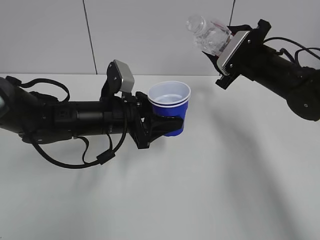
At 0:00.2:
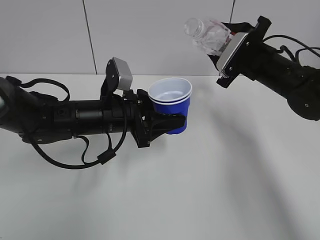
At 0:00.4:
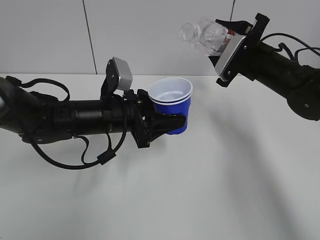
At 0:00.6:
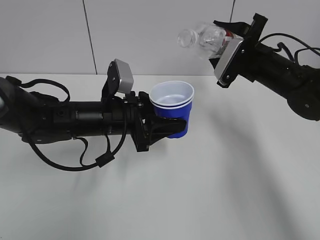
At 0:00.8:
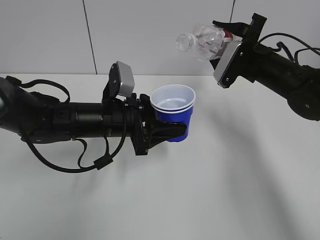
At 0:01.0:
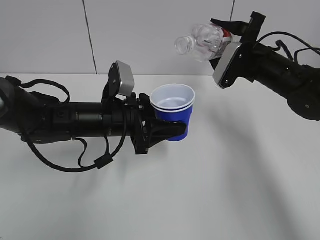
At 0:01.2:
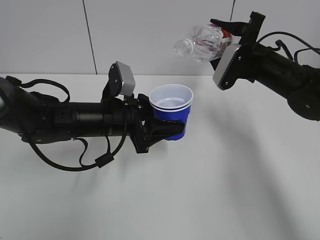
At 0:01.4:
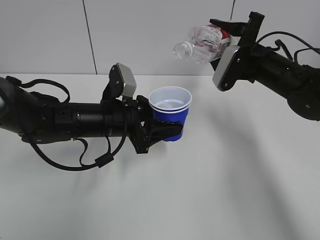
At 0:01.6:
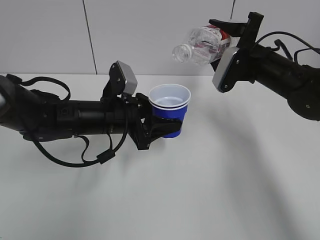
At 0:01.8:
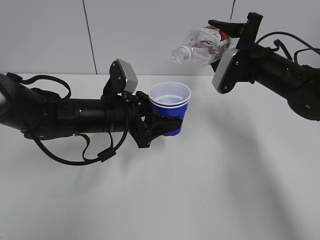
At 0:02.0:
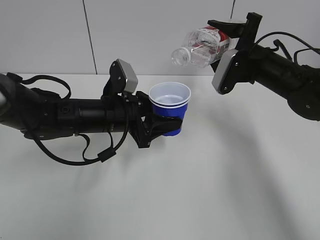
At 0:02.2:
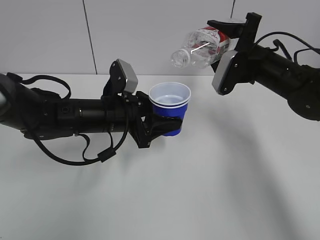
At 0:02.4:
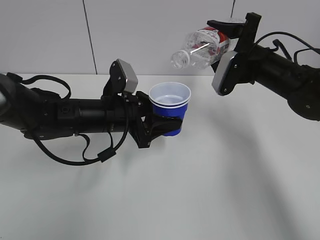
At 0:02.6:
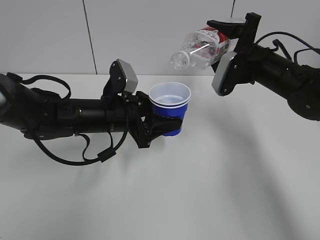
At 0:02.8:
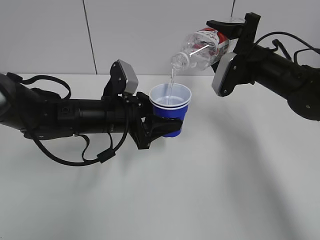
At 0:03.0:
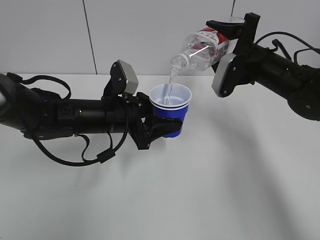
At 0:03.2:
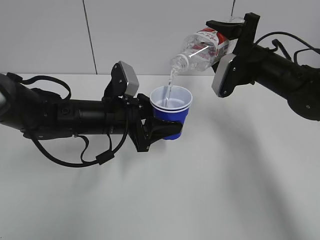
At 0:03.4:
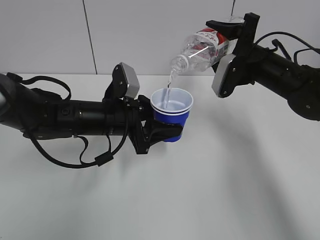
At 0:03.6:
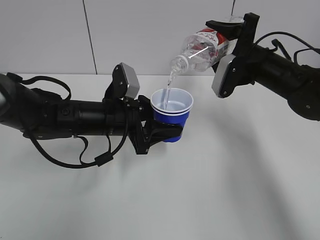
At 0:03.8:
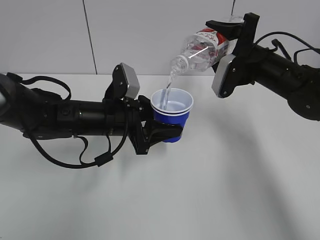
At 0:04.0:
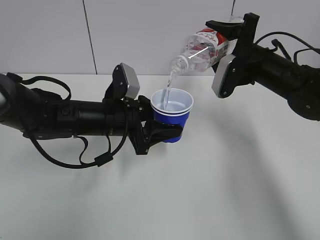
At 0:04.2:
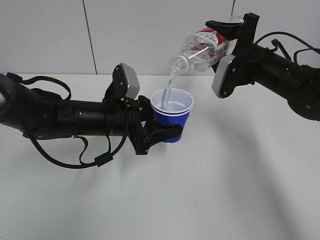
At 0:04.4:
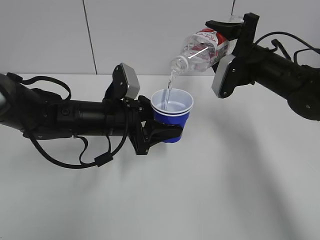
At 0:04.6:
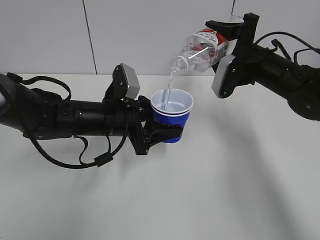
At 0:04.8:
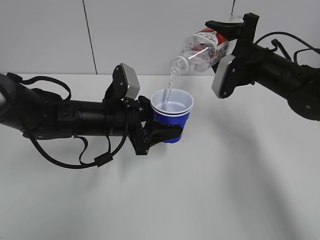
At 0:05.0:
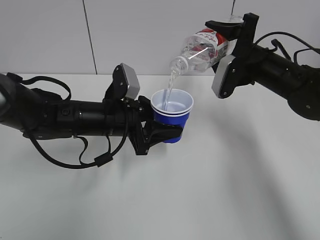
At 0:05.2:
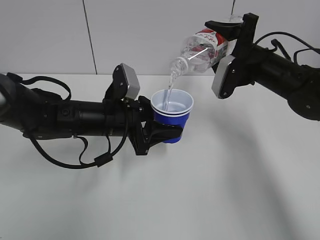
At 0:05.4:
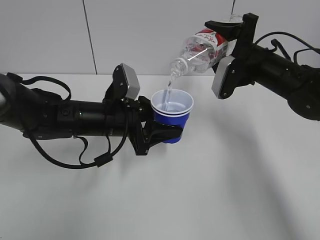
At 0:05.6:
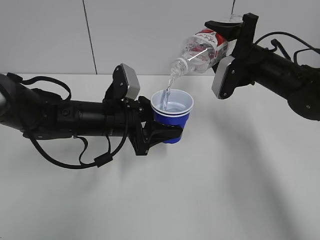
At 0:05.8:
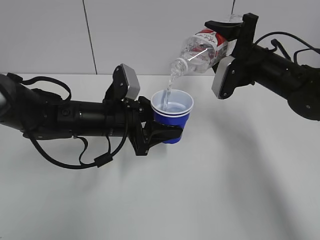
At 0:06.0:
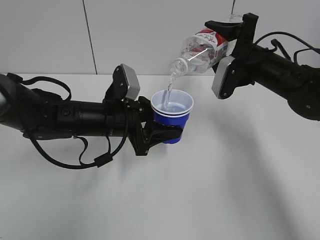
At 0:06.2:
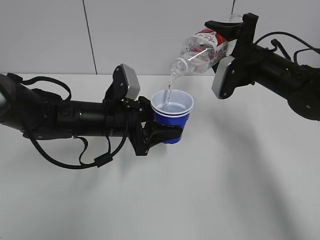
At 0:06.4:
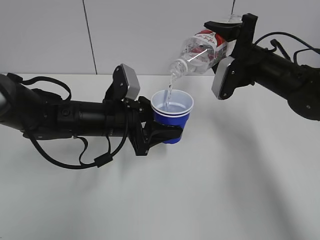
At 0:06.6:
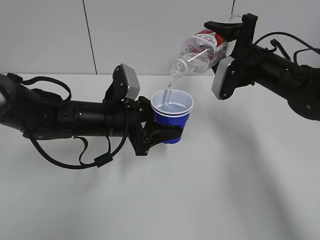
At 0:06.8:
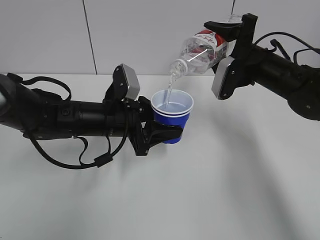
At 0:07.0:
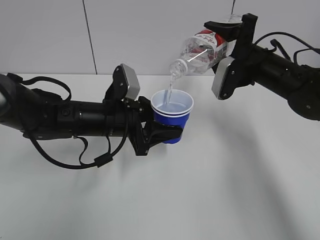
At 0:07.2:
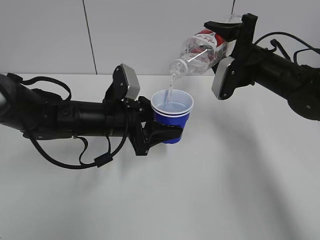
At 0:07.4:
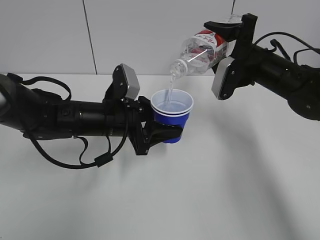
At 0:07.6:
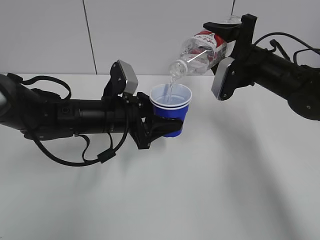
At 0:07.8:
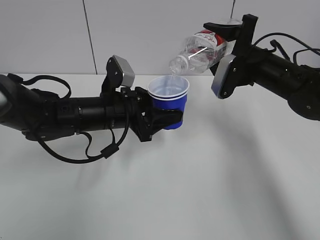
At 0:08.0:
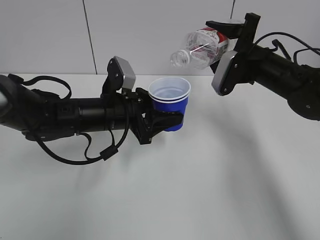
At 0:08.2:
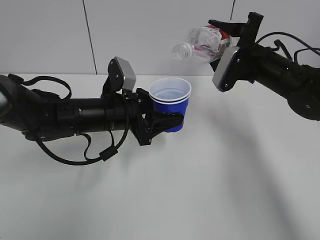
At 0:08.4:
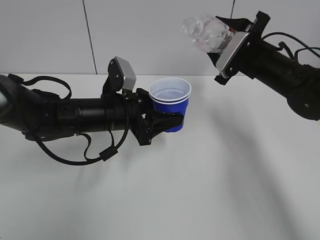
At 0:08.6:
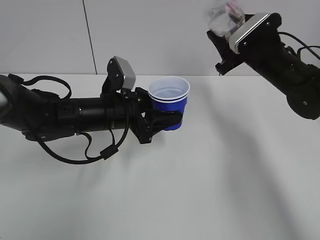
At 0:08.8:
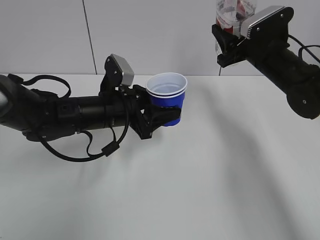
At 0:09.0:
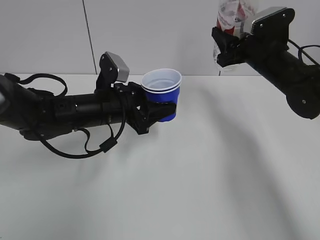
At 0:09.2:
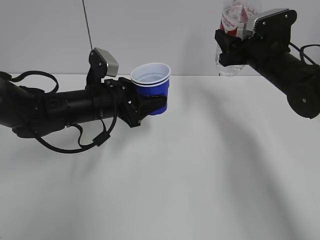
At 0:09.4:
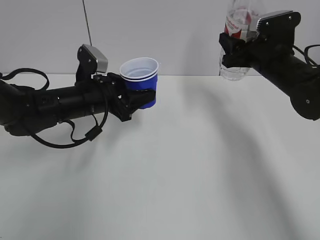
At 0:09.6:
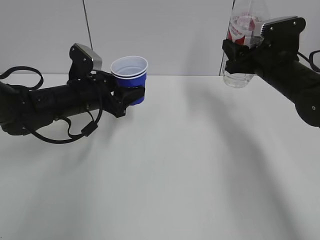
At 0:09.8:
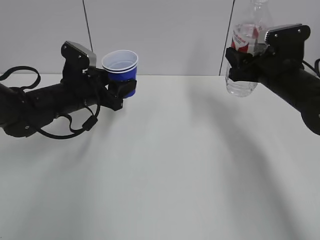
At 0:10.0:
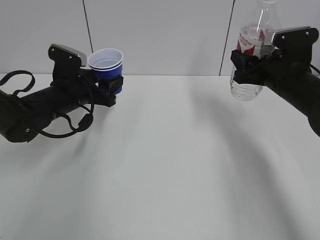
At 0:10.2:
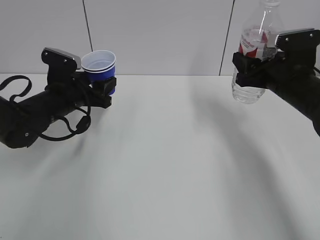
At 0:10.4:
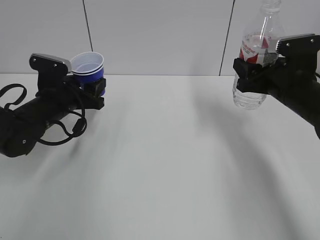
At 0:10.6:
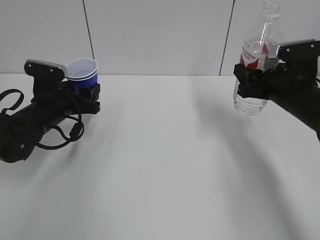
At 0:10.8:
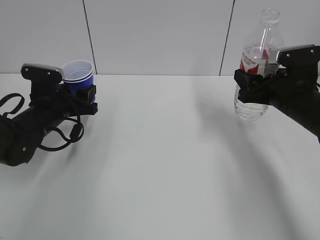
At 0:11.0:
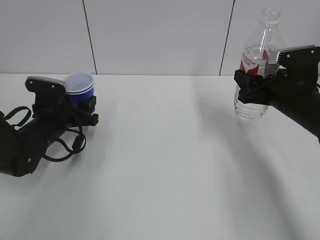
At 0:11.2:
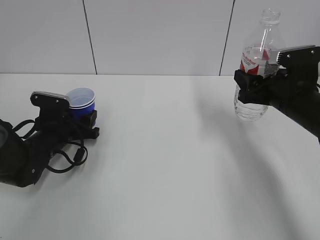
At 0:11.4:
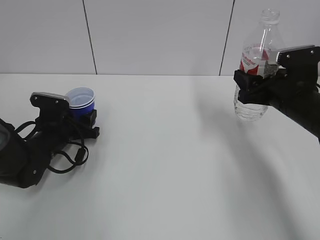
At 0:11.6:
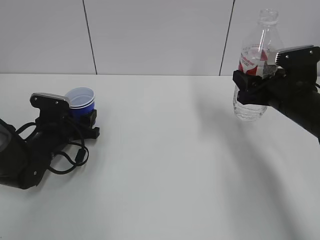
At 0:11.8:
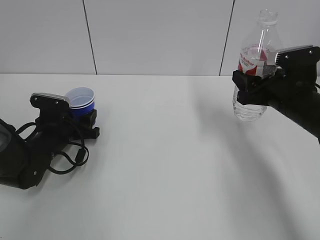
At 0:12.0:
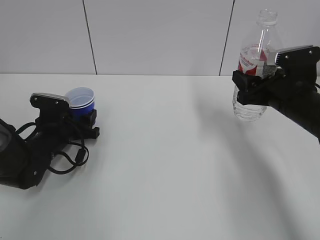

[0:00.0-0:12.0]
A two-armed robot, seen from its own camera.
Step, 0:02.0 to 0:07.8: Fill water with the left hand.
Step, 0:02.0 to 0:07.8: Pour water with the right hand.
Step, 0:08.0 to 0:09.0: Collect water with the right hand.
0:01.6 to 0:03.0: There are only small adjustments of the grippers.
0:03.0 to 0:07.6: The two grippers keep their place.
0:09.0 to 0:10.4: The left gripper moves to the left, approximately 10 cm; the right gripper heads backward, covering approximately 5 cm.
0:10.4 to 0:12.0: The left gripper heads downward, covering approximately 10 cm.

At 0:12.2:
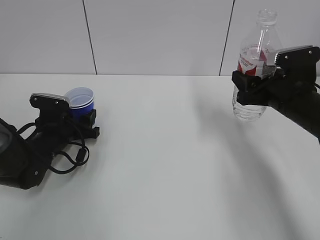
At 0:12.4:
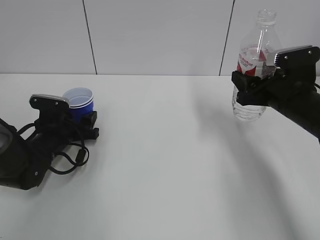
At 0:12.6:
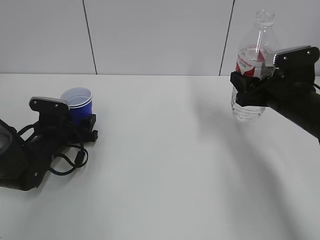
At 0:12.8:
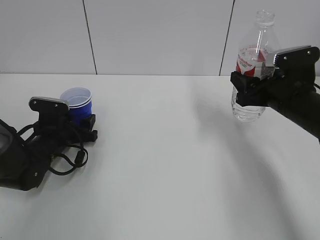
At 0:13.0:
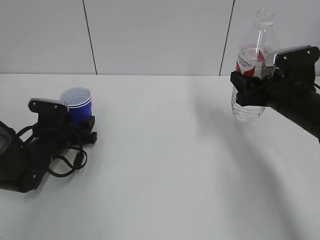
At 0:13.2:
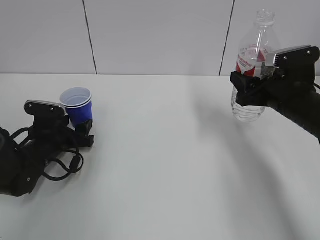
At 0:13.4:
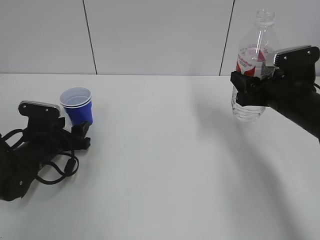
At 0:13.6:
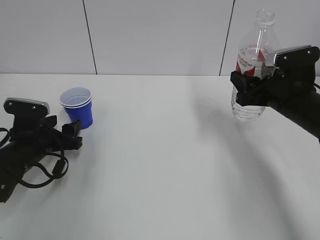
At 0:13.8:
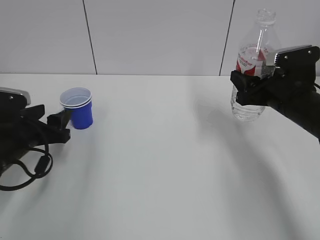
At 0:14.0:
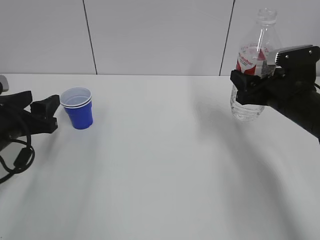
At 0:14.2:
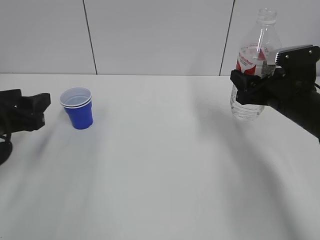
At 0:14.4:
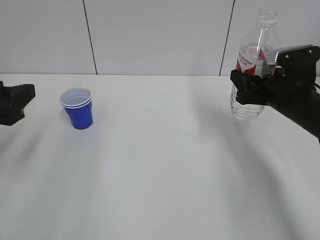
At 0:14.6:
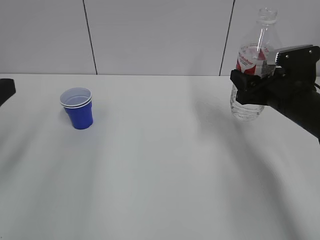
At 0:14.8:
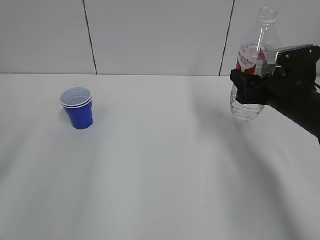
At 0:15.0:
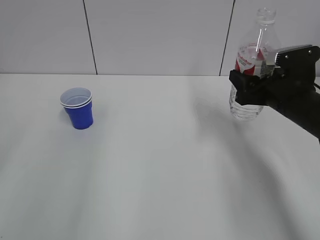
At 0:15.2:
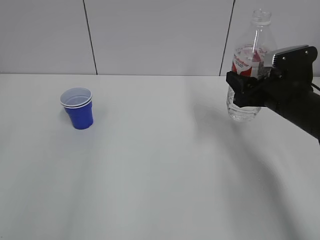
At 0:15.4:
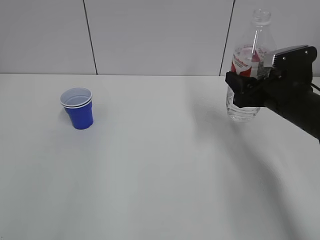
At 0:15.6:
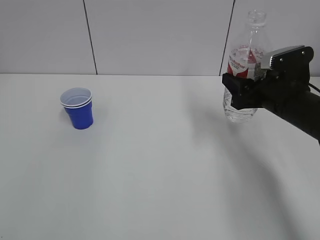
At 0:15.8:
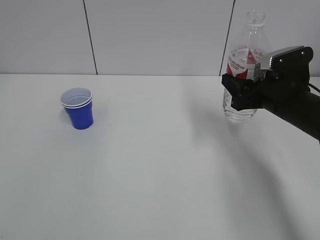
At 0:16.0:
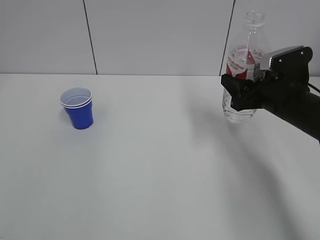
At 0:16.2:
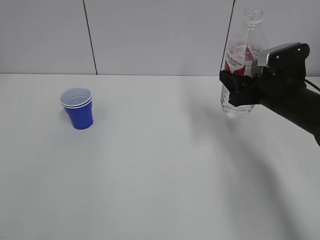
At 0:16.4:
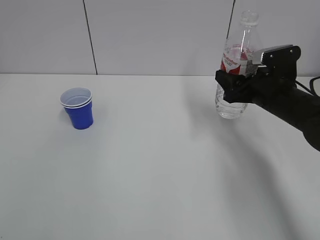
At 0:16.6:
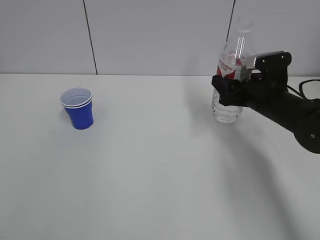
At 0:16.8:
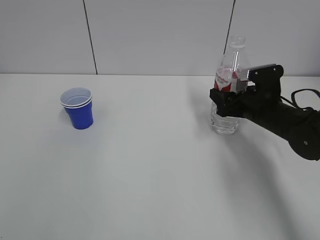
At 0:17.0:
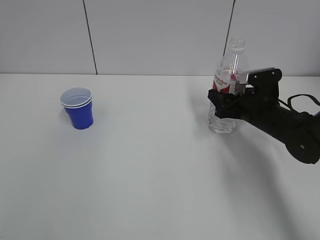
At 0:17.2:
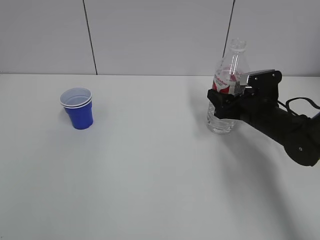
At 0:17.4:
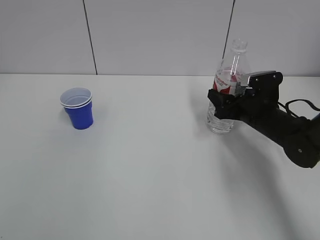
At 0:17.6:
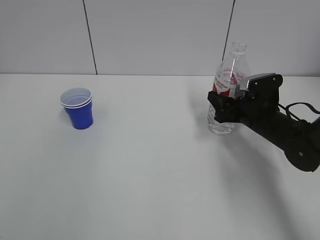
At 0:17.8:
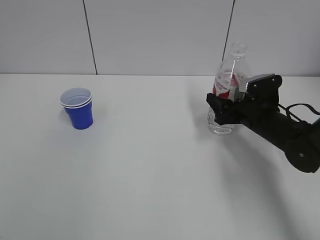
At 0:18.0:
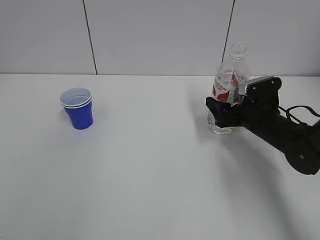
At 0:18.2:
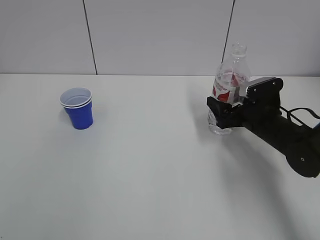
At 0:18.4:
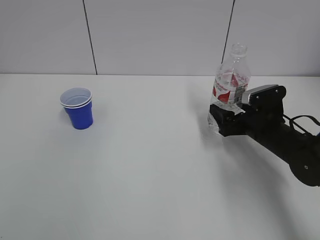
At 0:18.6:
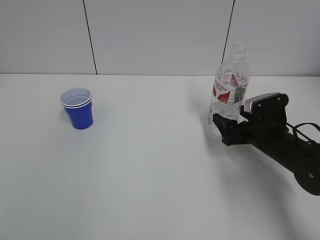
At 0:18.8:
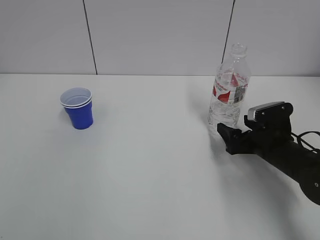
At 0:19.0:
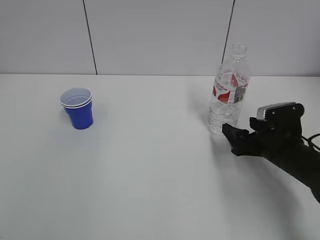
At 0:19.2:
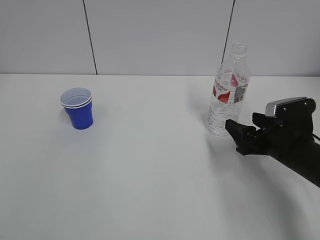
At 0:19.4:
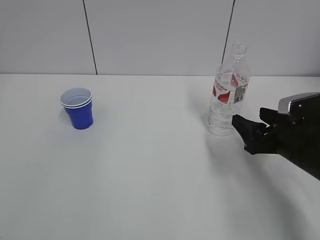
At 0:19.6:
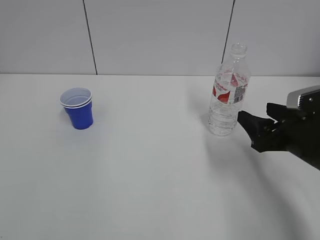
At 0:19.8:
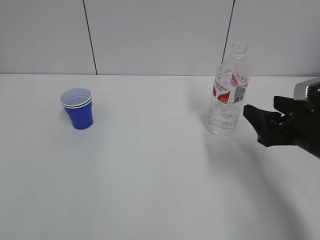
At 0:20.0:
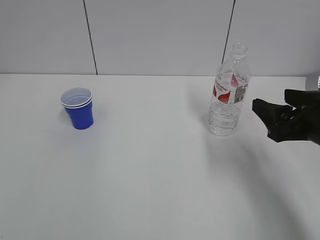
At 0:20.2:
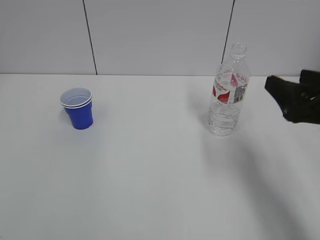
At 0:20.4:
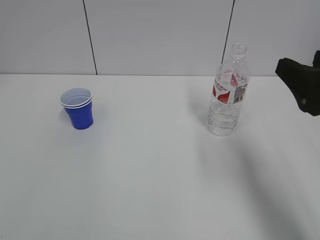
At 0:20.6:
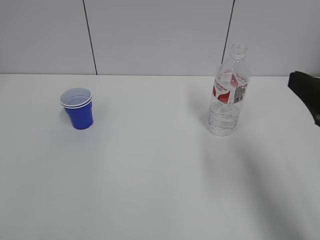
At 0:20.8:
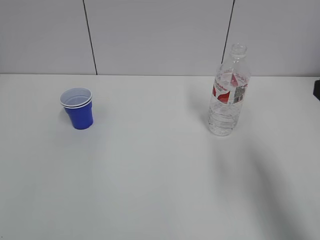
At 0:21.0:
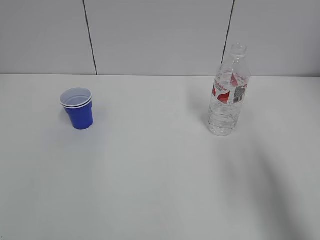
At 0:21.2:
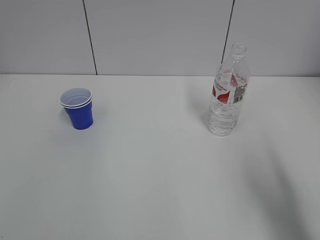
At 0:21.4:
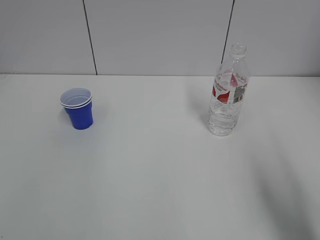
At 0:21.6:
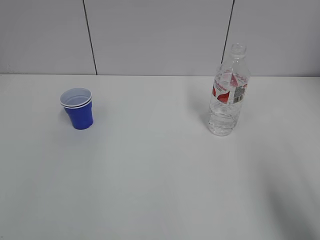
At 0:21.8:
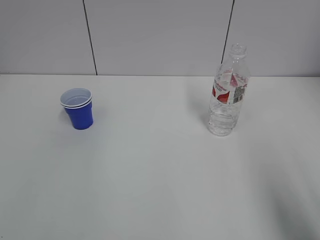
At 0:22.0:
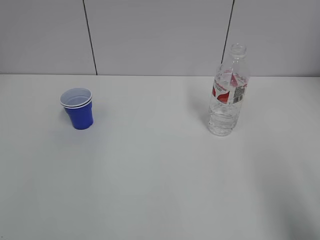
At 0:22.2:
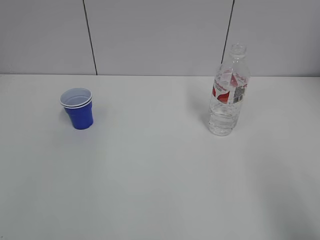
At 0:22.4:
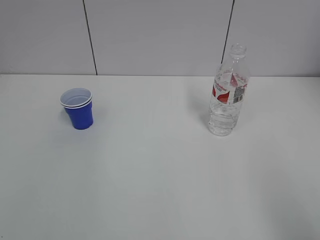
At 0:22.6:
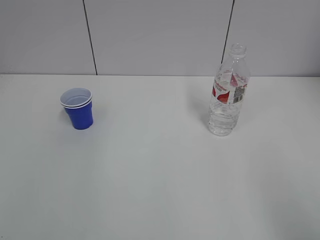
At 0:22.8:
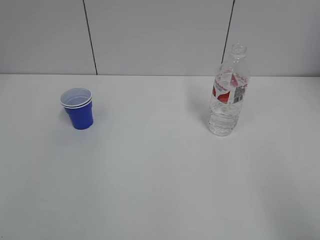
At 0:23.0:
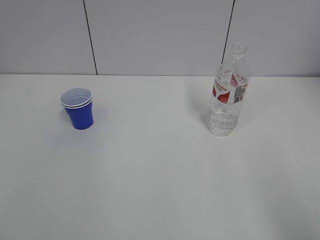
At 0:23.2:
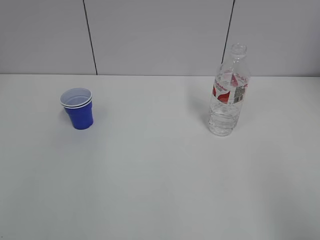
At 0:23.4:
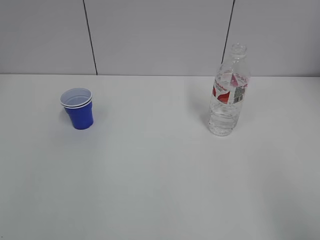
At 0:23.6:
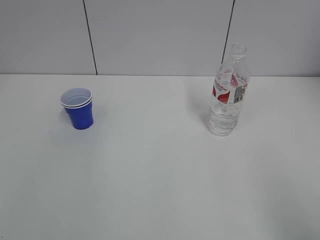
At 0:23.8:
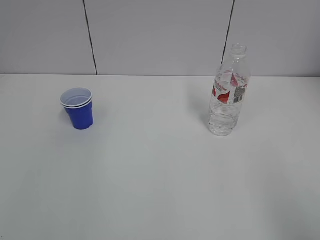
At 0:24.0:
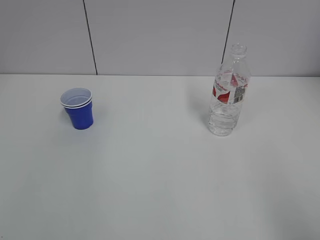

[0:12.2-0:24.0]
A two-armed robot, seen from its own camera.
Step, 0:13.0 to 0:18.4: Place the water bottle with the right hand.
0:12.2 to 0:13.6: The left gripper goes some 5 cm backward, and opens.
0:13.6 to 0:15.2: The left gripper moves backward and upward, roughly 35 cm.
0:15.2 to 0:16.6: The right gripper changes place by approximately 5 cm.
0:16.6 to 0:18.2: The right gripper opens.
0:18.2 to 0:19.6: The right gripper heads backward and upward, covering approximately 15 cm, and closes up.
0:19.6 to 0:21.0: The right gripper shifts roughly 20 cm upward and backward.
0:21.0 to 0:22.6: The right gripper shifts approximately 15 cm backward.
0:22.6 to 0:24.0: Neither gripper changes place.
